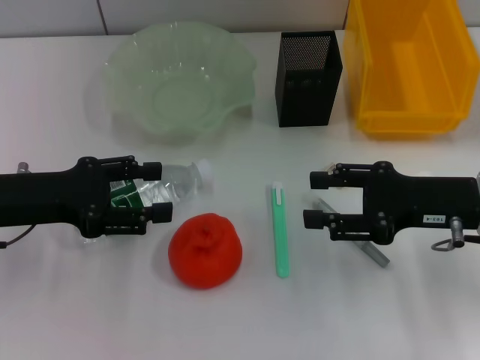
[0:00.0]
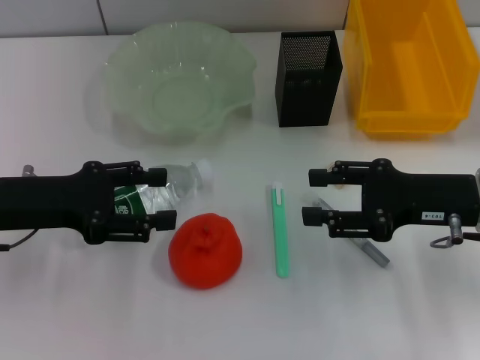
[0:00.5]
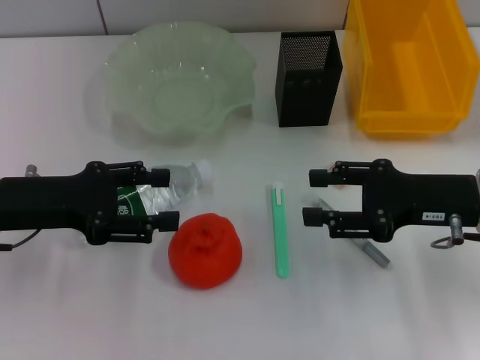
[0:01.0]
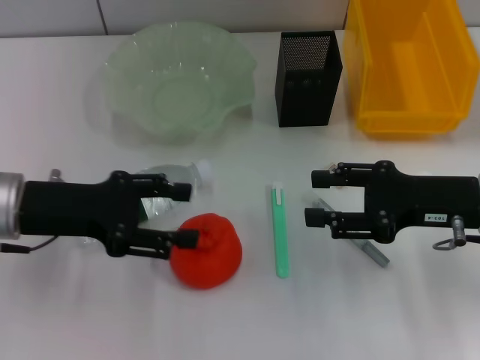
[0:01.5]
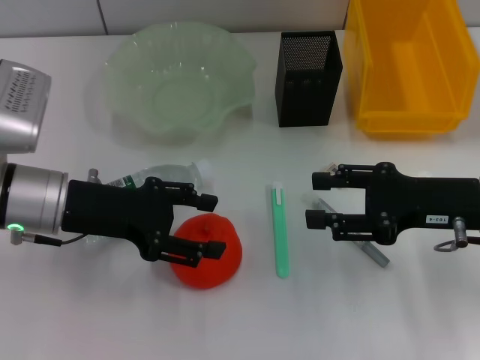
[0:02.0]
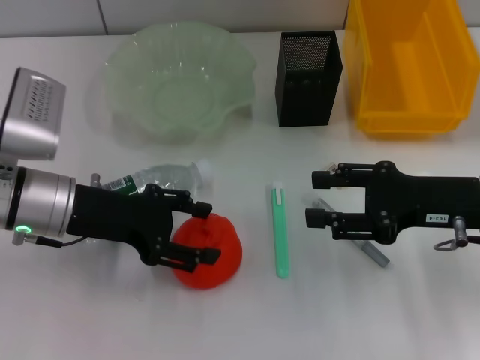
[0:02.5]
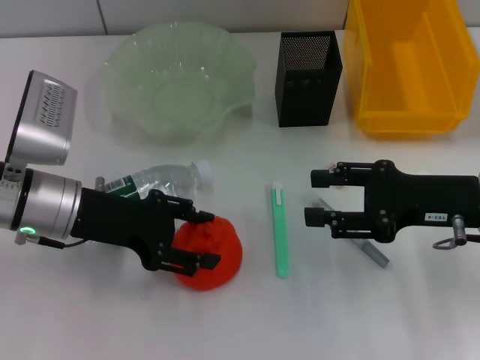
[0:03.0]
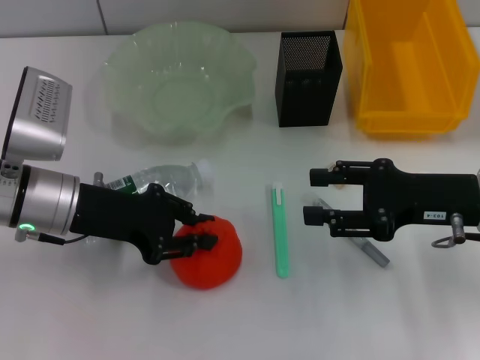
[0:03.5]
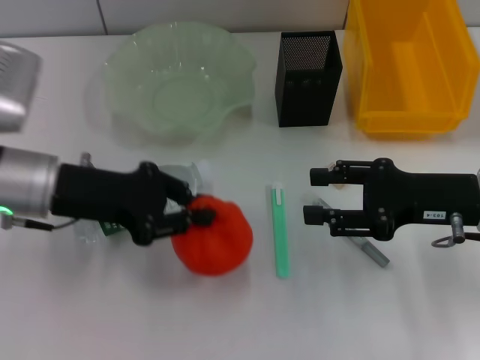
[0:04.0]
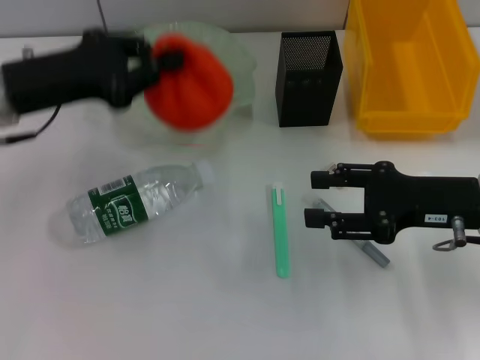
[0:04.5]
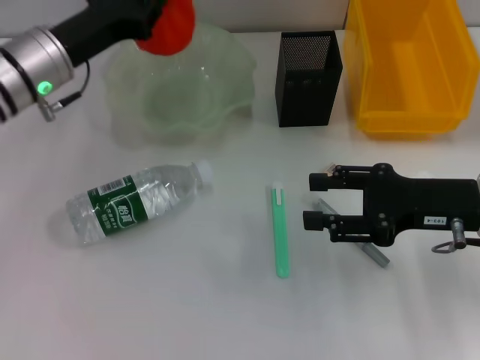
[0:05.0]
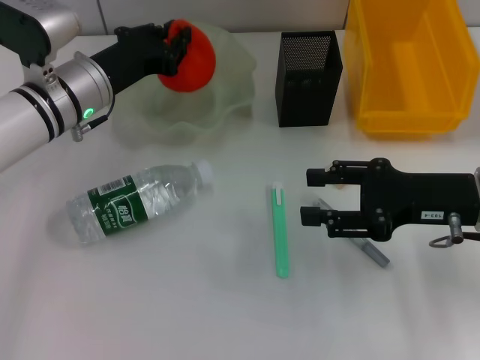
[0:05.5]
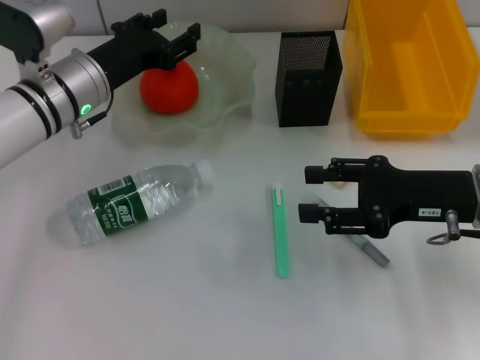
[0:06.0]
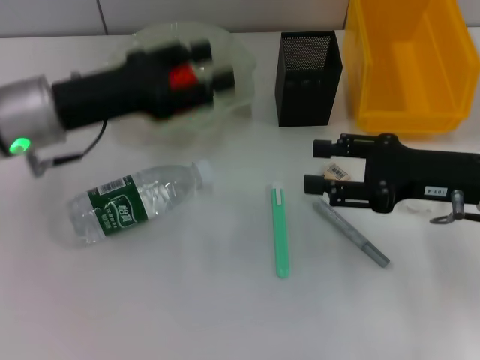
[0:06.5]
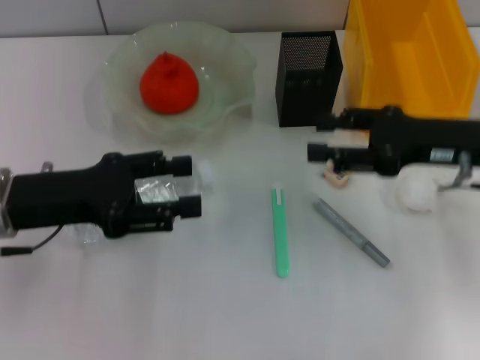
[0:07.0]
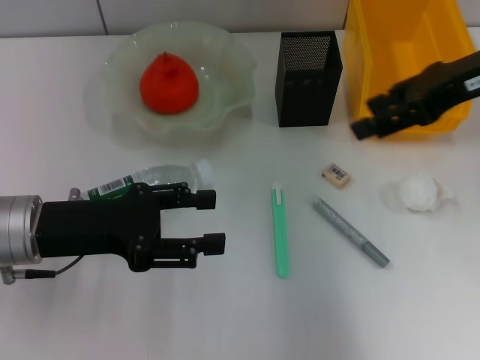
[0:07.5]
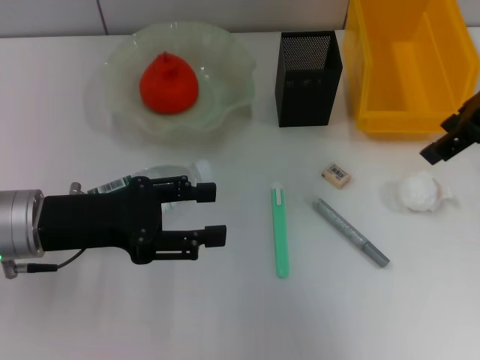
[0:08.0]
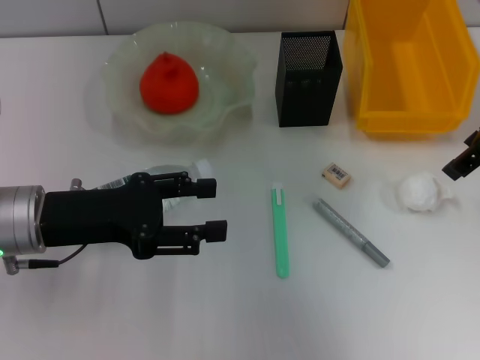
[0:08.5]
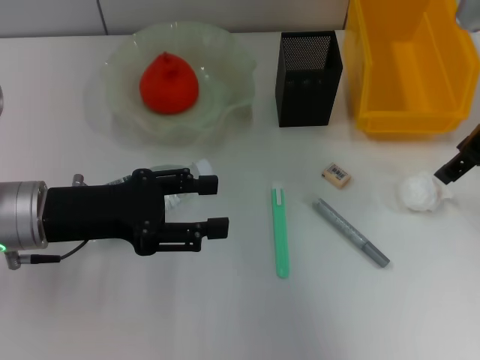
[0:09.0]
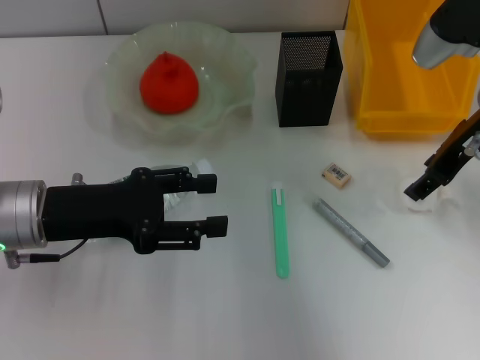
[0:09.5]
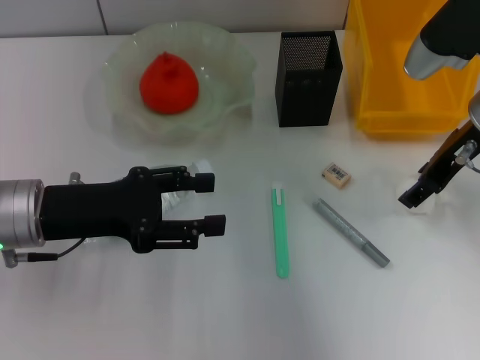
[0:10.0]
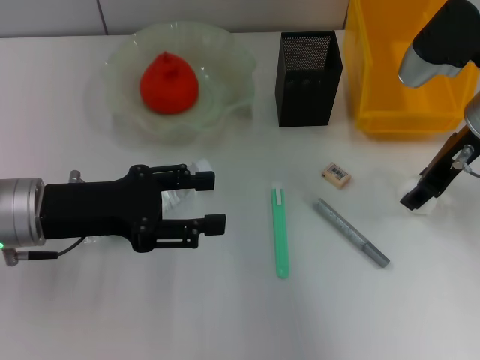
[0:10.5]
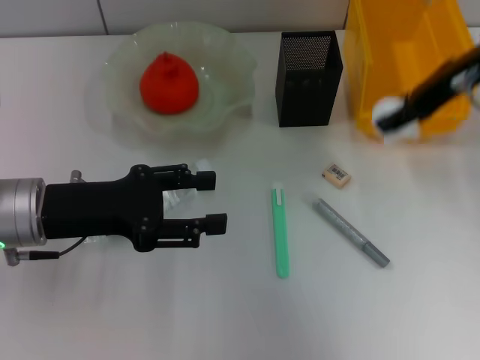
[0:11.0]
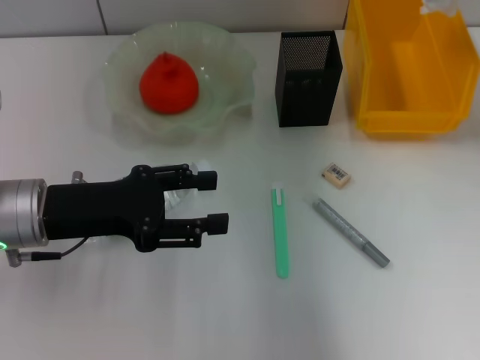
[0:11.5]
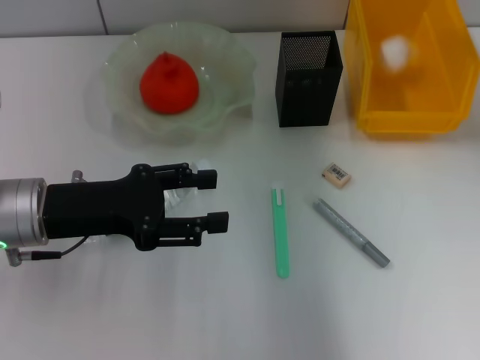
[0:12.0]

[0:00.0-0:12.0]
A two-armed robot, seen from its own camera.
Step, 0:00.0 to 0:03.0: Grab the orange with the left hand.
Step, 0:04.0 to 0:05.5: Place the orange into the fruit bowl with the left hand.
Step, 0:06.0 to 0:10.5: Grab the paper ball with the right hand.
0:00.0 to 0:02.0: The left gripper is displaced to the right by about 5 cm.
0:02.0 to 0:04.0: The left gripper closes.
0:04.0 to 0:06.0: The left gripper travels forward by approximately 10 cm.
0:06.0 to 0:08.0: The right gripper travels upward and forward by roughly 15 cm. Meanwhile the left gripper moves backward, approximately 15 cm, and opens its fingers.
0:08.0 to 0:10.0: The right gripper travels downward by some 10 cm.
0:10.0 to 0:12.0: The right gripper heads upward and forward, covering about 10 cm.

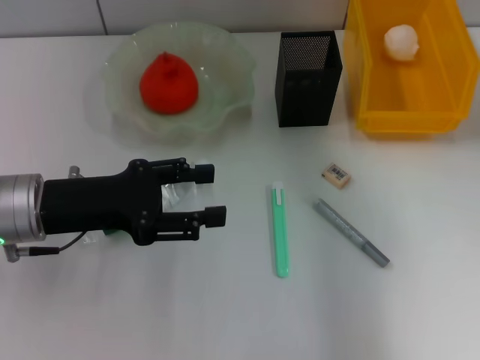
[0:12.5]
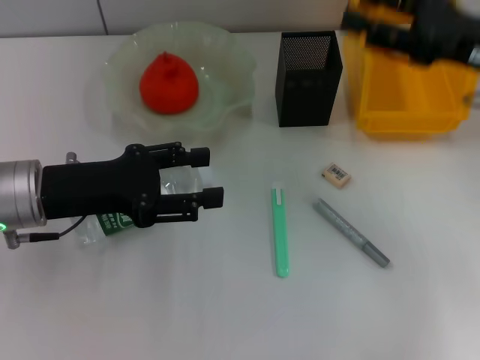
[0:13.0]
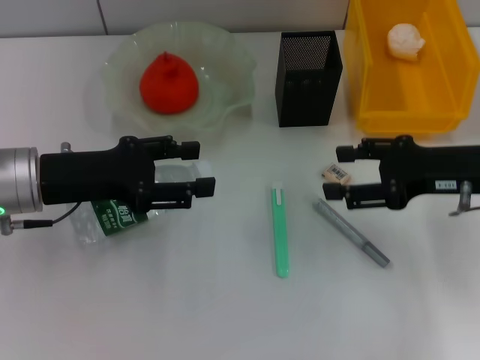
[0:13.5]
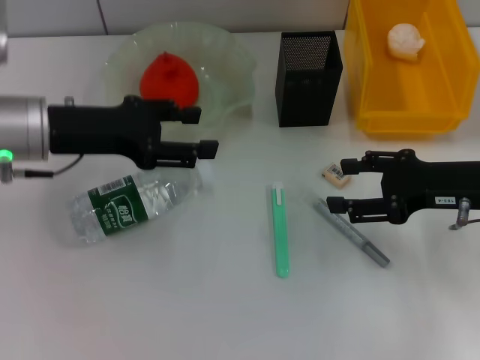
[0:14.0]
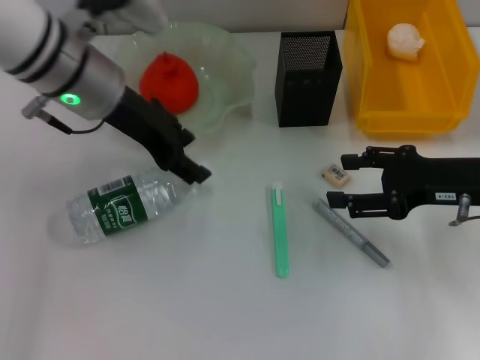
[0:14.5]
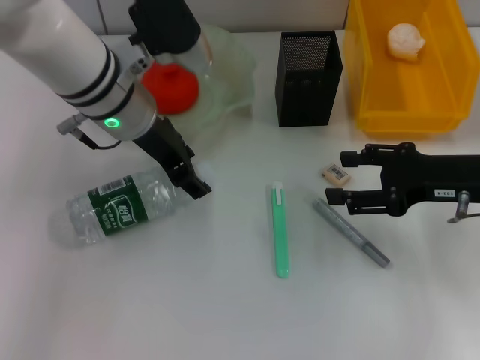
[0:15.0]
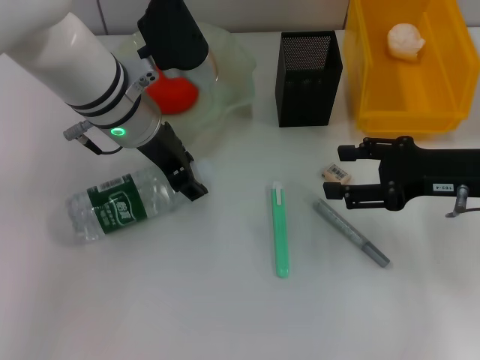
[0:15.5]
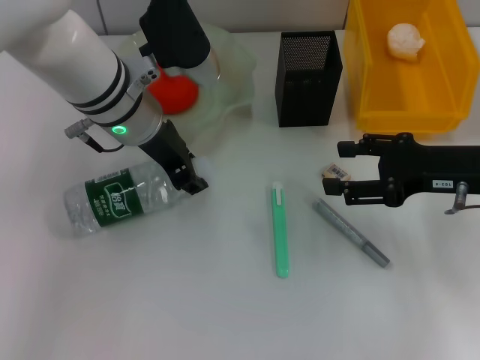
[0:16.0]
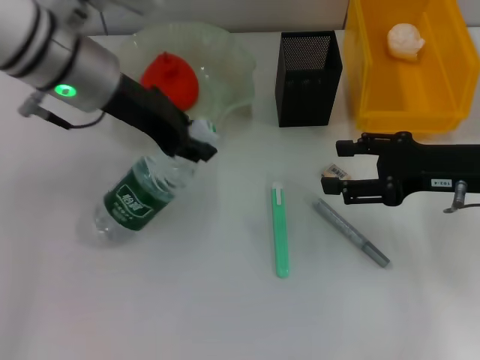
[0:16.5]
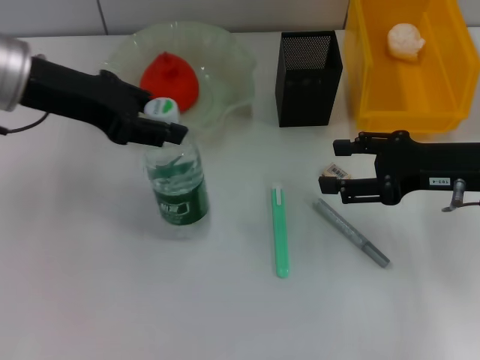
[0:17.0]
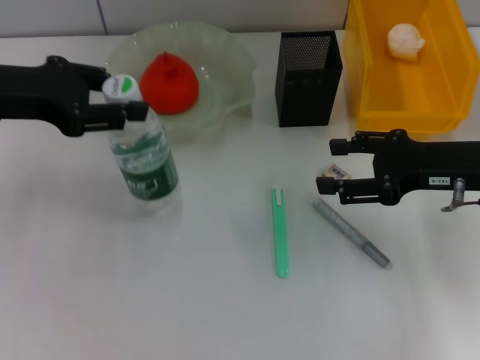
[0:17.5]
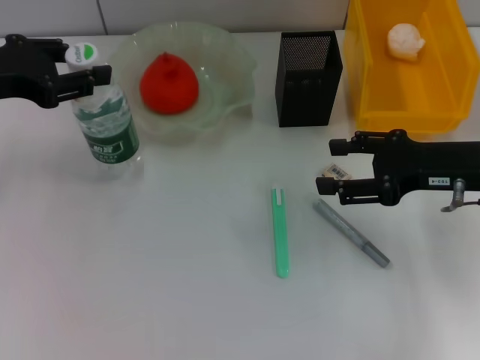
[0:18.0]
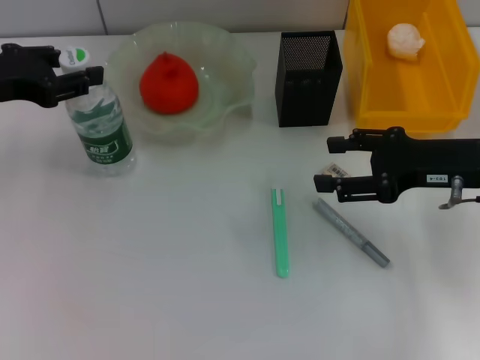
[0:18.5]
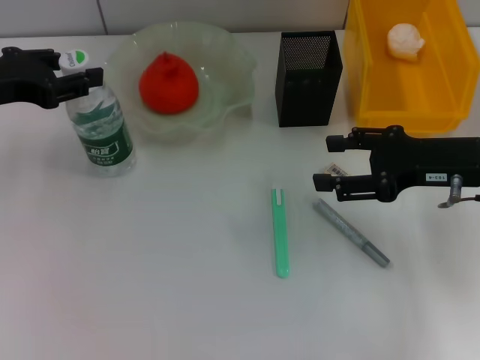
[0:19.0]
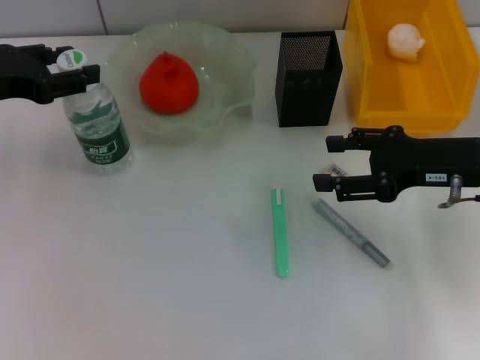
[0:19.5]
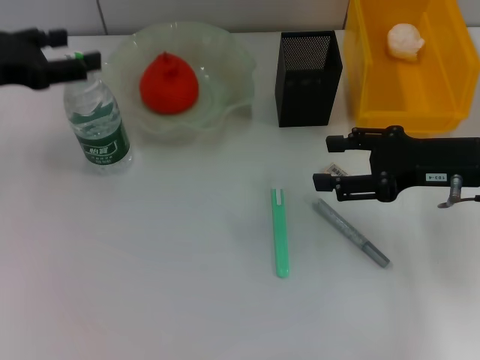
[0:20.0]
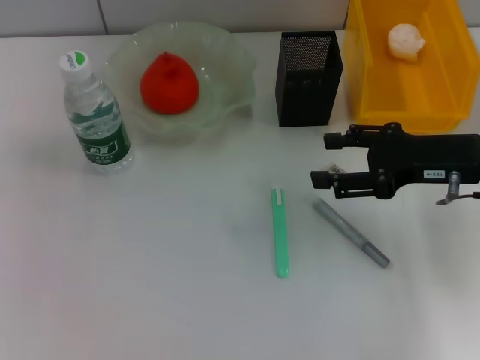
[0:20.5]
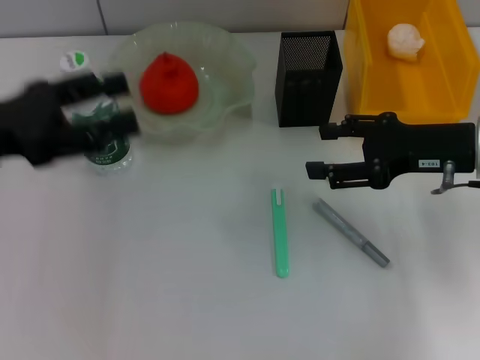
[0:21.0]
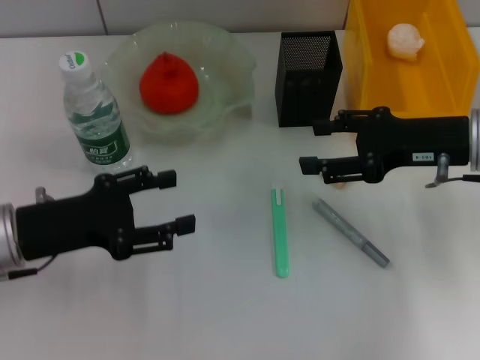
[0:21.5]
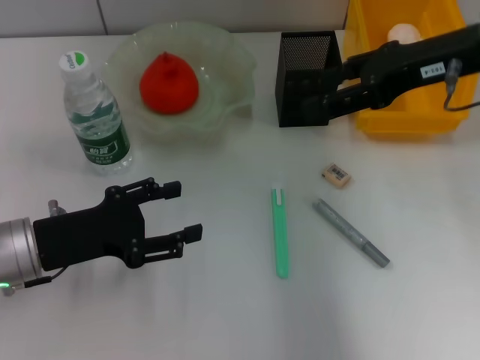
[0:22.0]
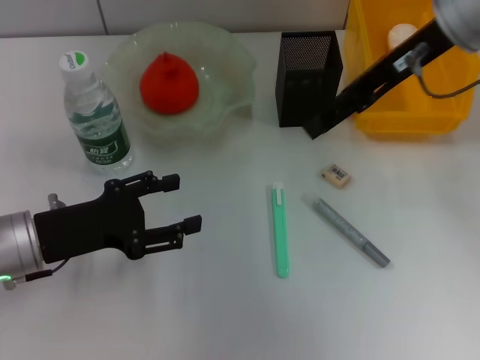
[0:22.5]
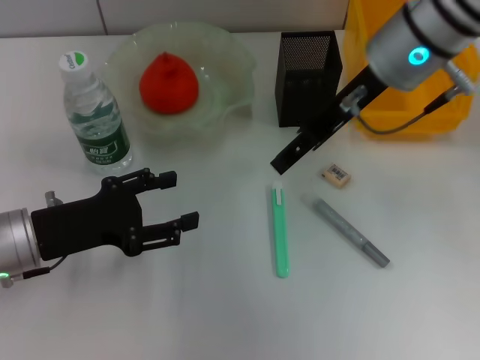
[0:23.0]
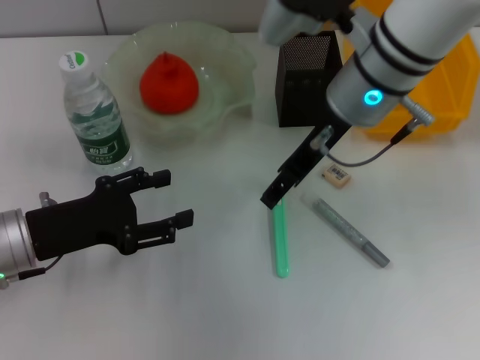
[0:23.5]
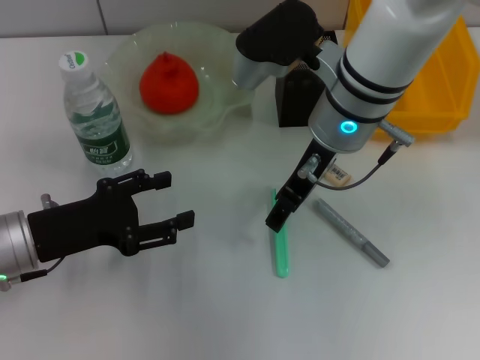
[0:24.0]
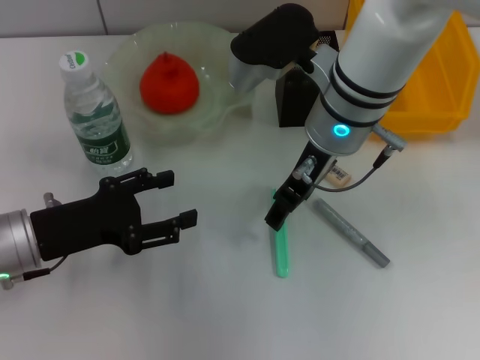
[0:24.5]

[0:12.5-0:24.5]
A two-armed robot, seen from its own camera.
Step, 0:12.5 to 0:15.5: Grab the water bottle with the left hand.
Step, 0:16.0 to 0:19.5: Place the water bottle on the table with the left hand.
0:12.5 to 0:14.5: The right gripper travels downward and backward by roughly 15 cm, while the left gripper moves forward, upward and to the right, roughly 15 cm.
0:14.5 to 0:16.5: The left gripper closes.
0:16.5 to 0:18.5: The left gripper is displaced to the left by about 15 cm.
0:18.5 to 0:20.5: The left gripper heads upward, covering some 5 cm, and opens.
0:20.5 to 0:22.5: The left gripper goes some 20 cm downward and to the right; the right gripper moves upward, to the left and forward, roughly 20 cm.
0:22.5 to 0:24.5: The right gripper goes about 15 cm to the left and downward.

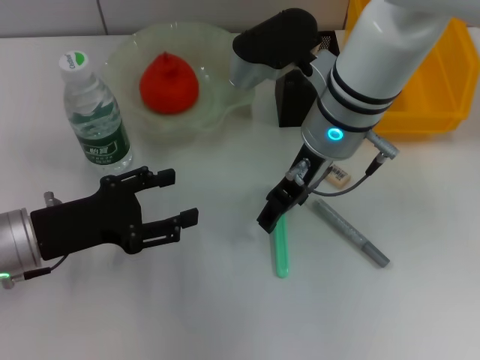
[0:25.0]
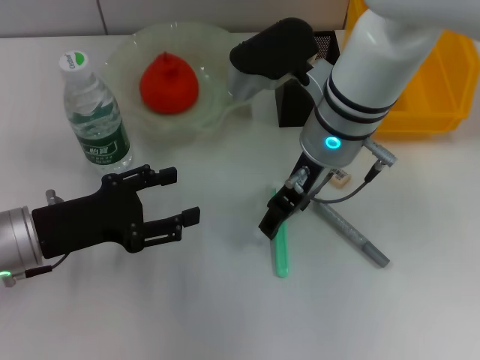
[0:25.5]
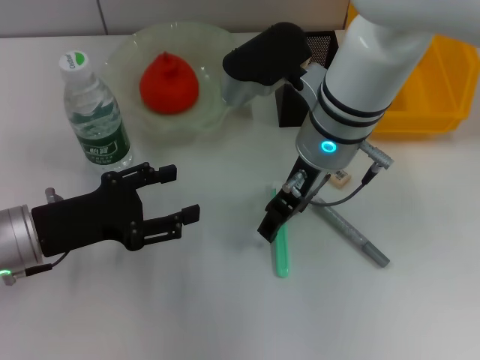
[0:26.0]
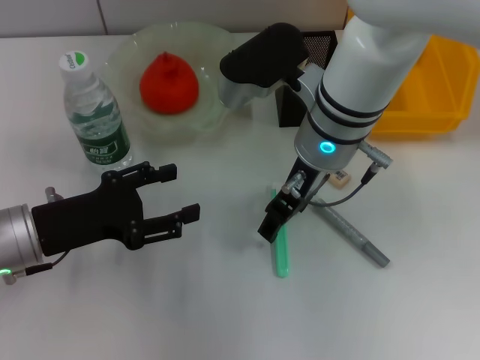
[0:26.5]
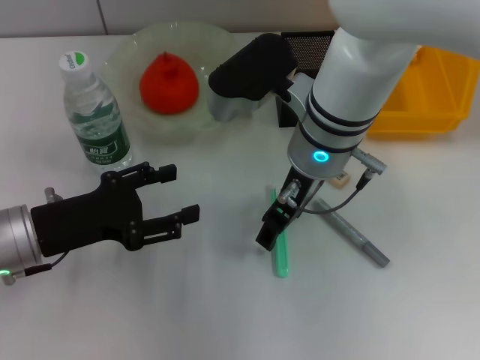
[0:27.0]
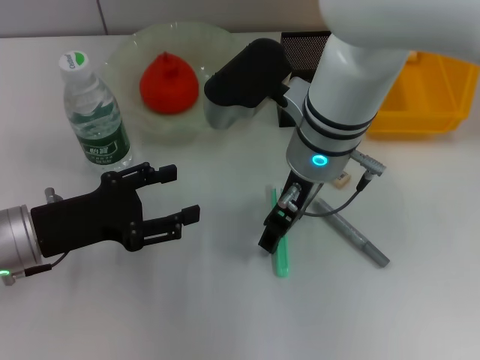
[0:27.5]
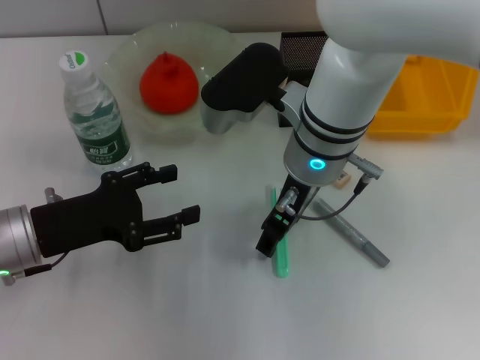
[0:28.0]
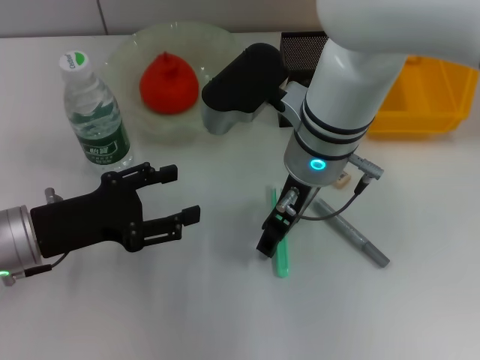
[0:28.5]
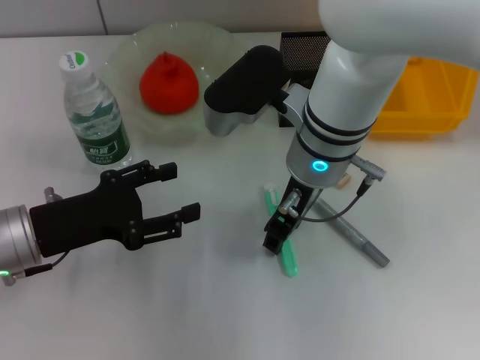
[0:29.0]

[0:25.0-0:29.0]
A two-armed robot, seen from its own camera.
0:25.0 to 0:27.0: The grippers stay close to where they were, moving slightly.
0:27.0 to 0:29.0: Both grippers stay put.
